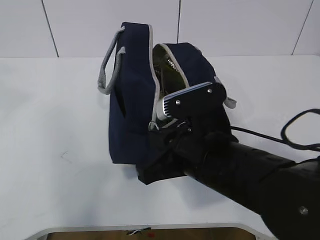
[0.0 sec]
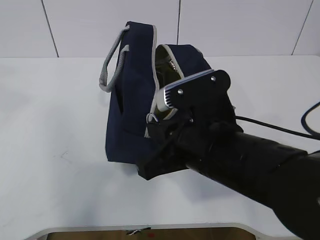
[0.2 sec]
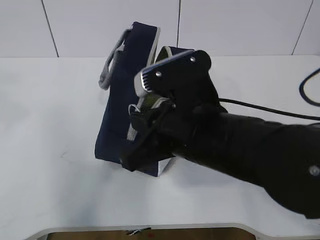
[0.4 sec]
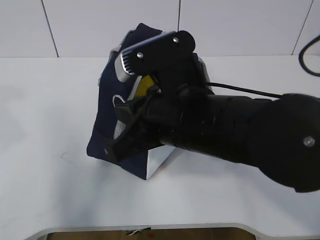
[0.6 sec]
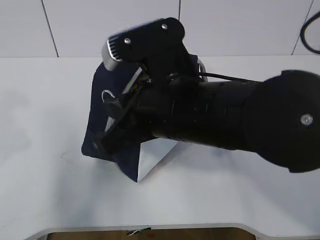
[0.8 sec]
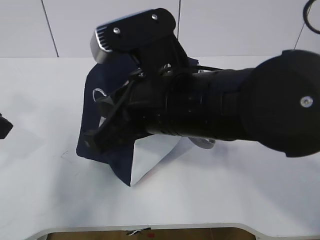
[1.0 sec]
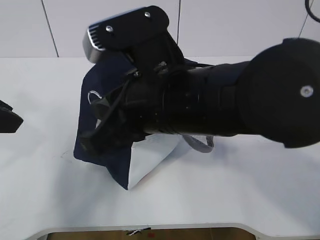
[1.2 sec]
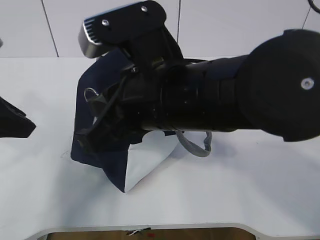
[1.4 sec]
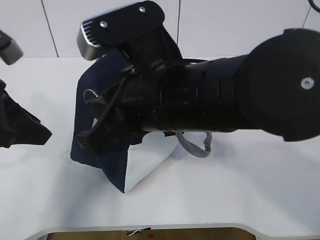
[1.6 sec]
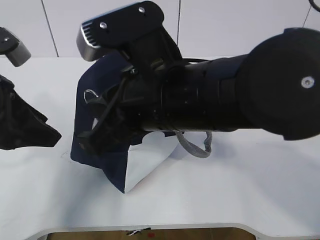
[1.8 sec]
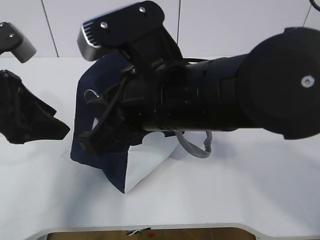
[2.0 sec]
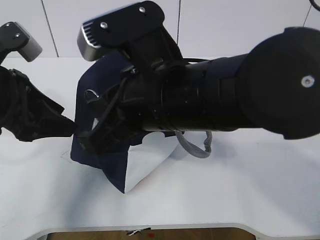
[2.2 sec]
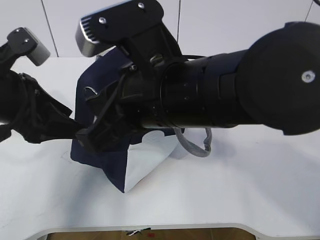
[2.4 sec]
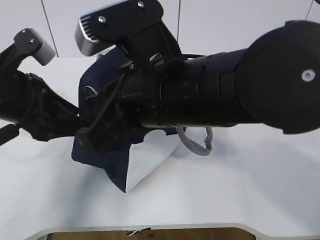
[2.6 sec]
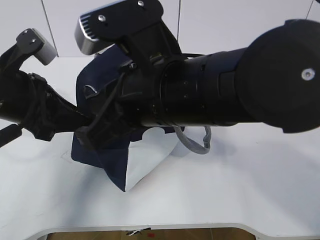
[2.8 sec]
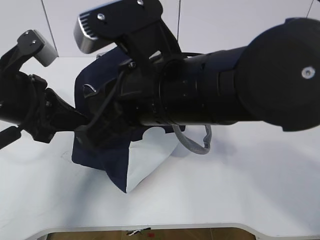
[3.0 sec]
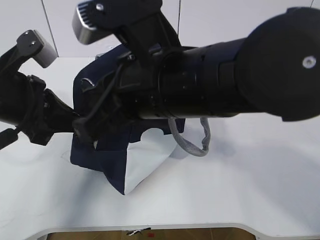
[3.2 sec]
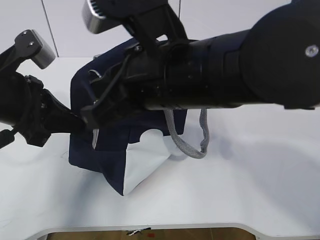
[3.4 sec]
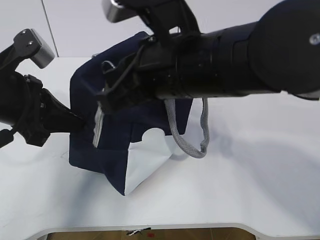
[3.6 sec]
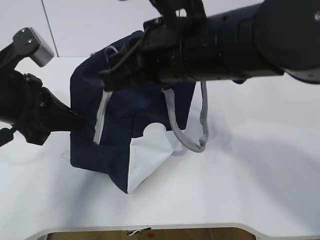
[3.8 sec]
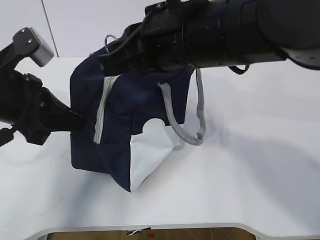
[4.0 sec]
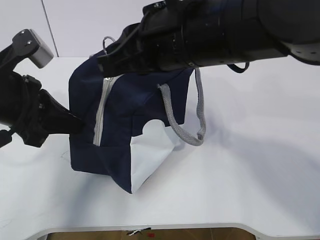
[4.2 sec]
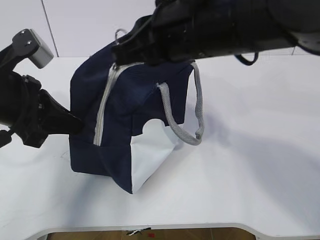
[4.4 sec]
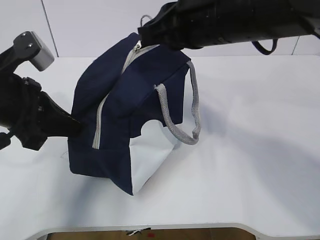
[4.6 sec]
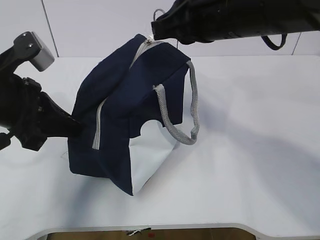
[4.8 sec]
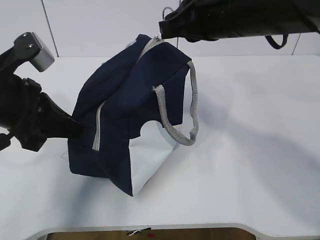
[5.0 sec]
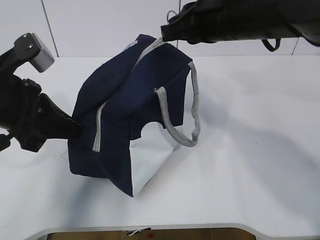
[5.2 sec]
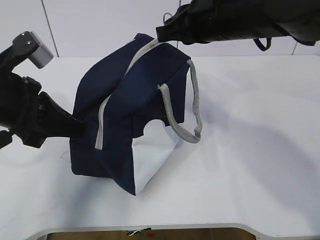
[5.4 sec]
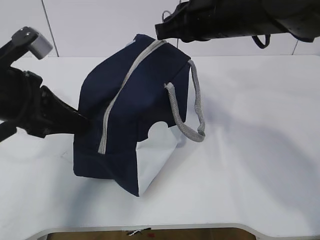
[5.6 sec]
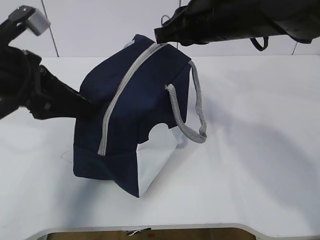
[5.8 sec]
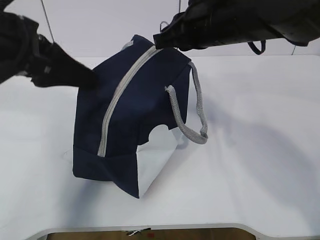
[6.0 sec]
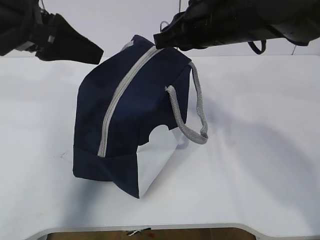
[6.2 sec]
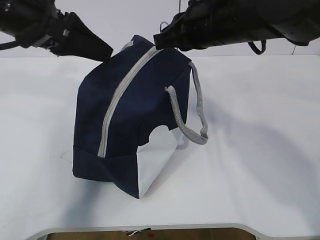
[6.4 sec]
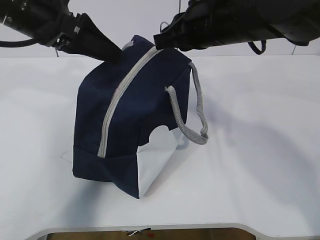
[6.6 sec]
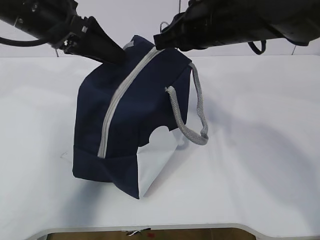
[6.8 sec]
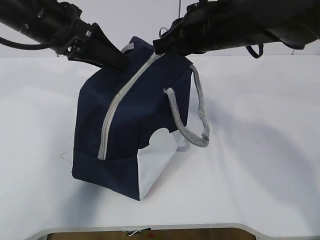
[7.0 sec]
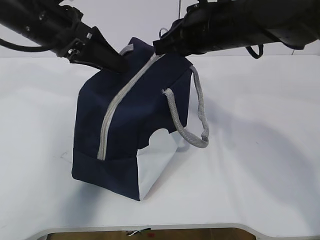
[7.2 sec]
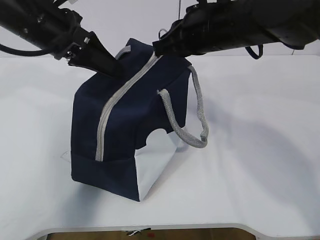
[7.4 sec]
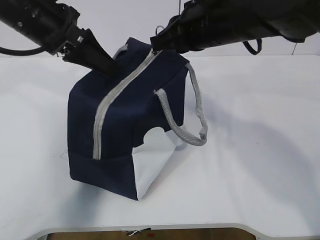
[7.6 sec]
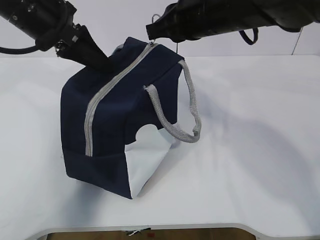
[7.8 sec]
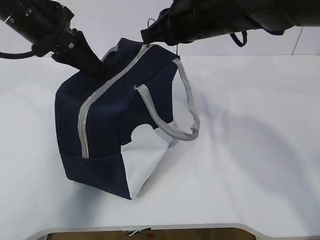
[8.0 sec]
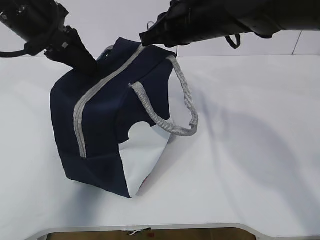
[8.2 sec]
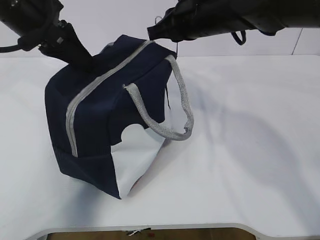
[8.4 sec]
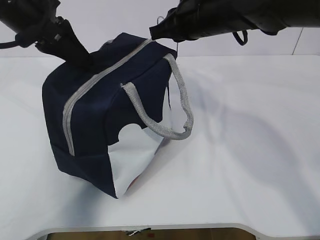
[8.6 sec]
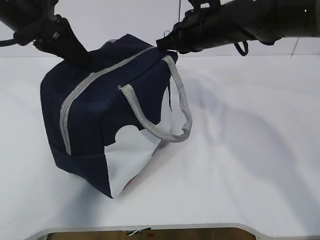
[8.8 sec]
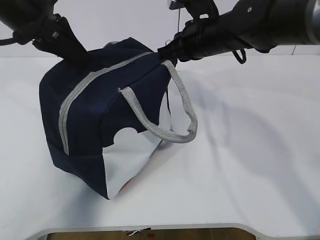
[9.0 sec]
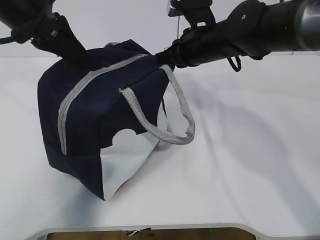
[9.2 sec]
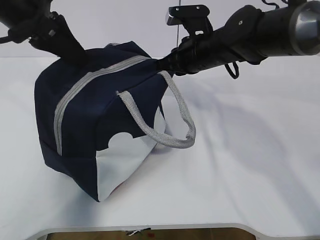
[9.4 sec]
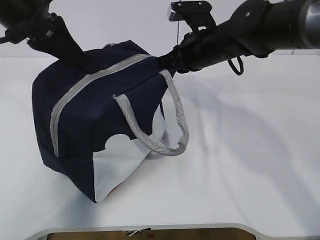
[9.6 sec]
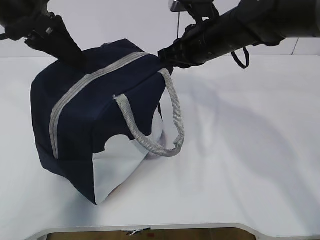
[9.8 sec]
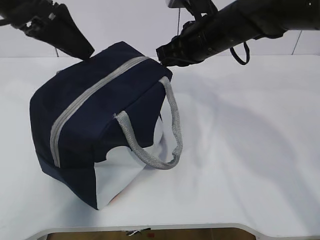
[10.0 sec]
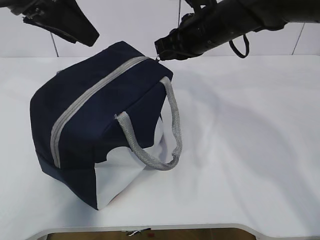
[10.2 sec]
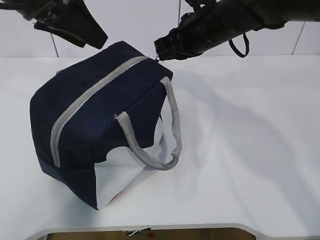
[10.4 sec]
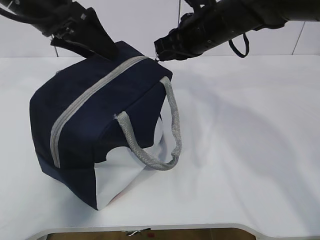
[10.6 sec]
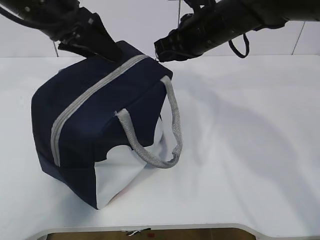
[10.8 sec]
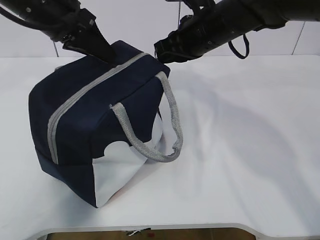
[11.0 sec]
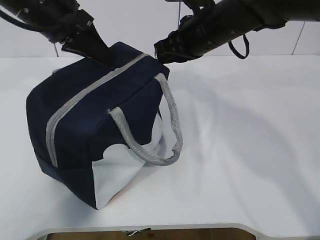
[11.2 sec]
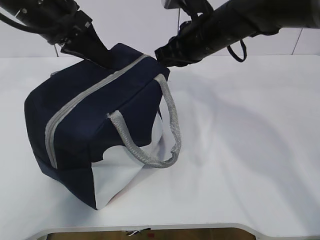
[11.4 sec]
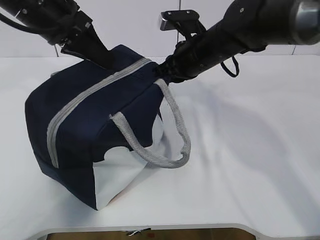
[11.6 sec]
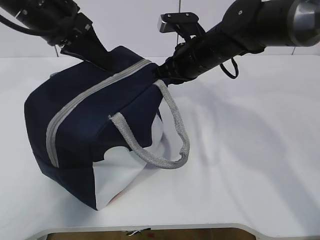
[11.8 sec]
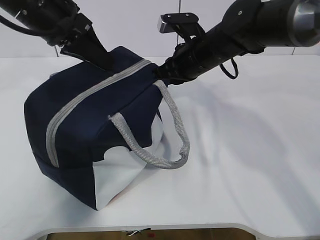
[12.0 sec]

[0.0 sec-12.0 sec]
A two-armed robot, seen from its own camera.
0.0 sec to 1.6 sec: The right gripper heads upward, covering roughly 10 cm. Meanwhile the left gripper heads downward, covering some 20 cm.
1.6 sec to 3.0 sec: The left gripper closes up.
3.0 sec to 4.4 sec: The right gripper is displaced forward by roughly 5 cm.
4.4 sec to 6.0 sec: The left gripper moves upward, roughly 5 cm, and opens. The right gripper travels forward by roughly 10 cm.
6.0 sec to 7.6 sec: The left gripper heads forward, covering some 5 cm, and closes up.
7.6 sec to 9.0 sec: The right gripper travels forward and downward by about 10 cm.
9.0 sec to 10.4 sec: The left gripper opens.
10.4 sec to 12.0 sec: The left gripper closes up. The right gripper travels downward by roughly 5 cm.

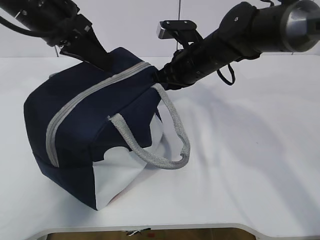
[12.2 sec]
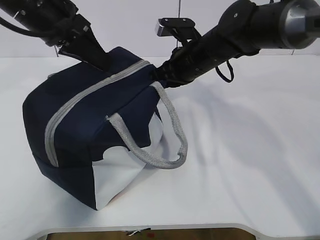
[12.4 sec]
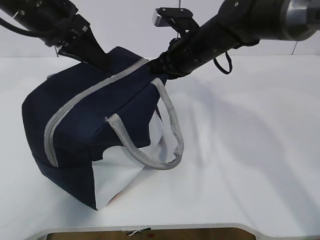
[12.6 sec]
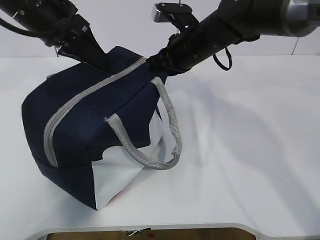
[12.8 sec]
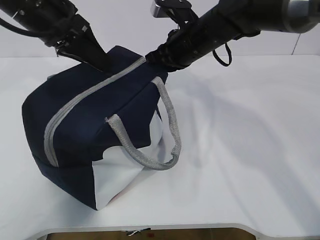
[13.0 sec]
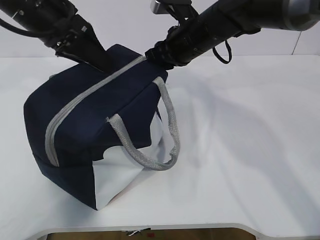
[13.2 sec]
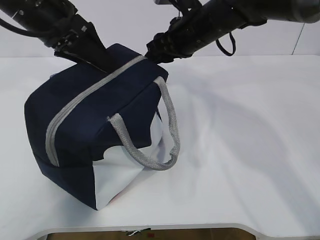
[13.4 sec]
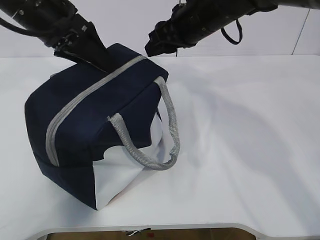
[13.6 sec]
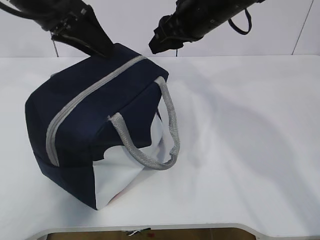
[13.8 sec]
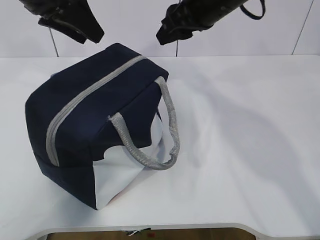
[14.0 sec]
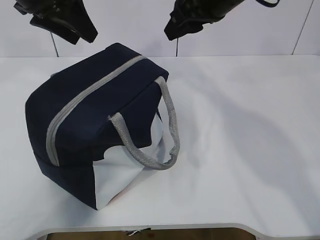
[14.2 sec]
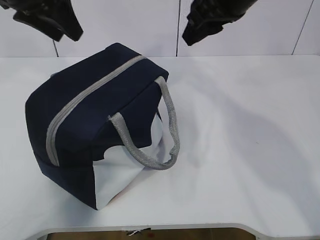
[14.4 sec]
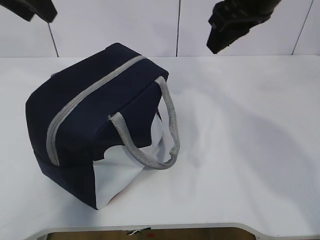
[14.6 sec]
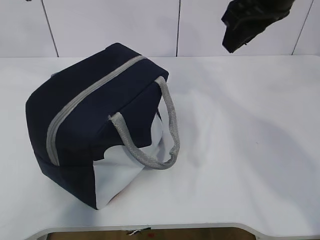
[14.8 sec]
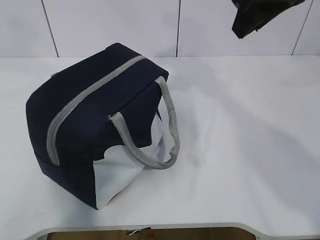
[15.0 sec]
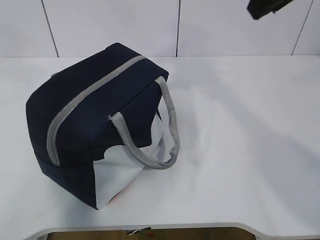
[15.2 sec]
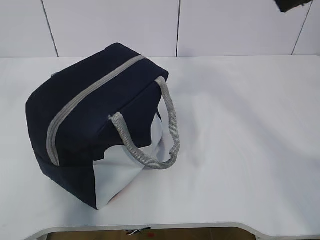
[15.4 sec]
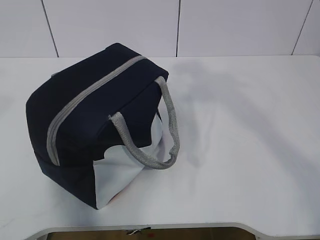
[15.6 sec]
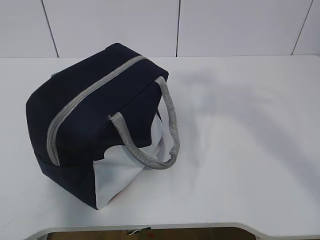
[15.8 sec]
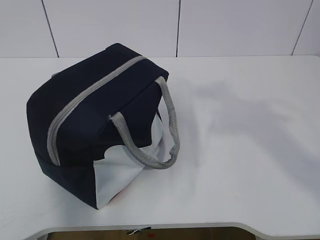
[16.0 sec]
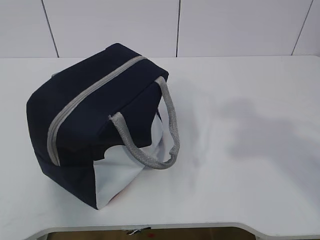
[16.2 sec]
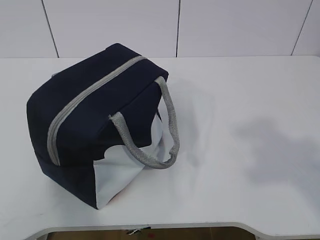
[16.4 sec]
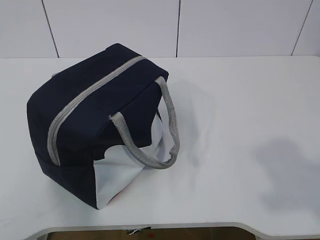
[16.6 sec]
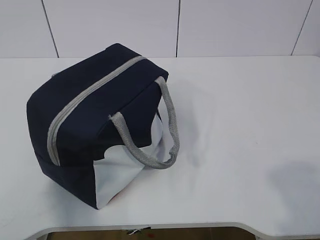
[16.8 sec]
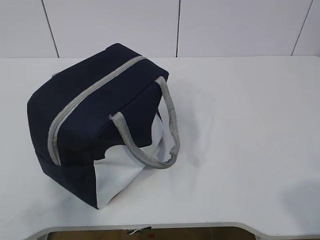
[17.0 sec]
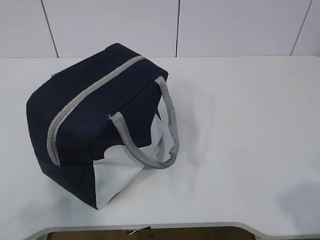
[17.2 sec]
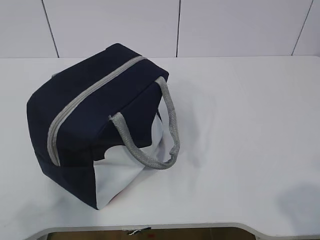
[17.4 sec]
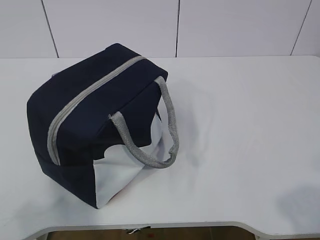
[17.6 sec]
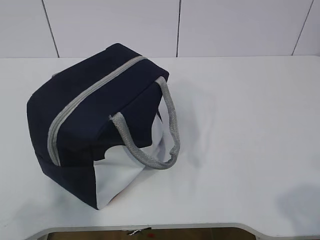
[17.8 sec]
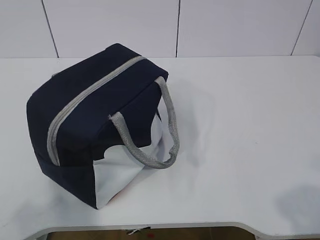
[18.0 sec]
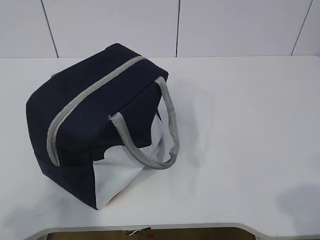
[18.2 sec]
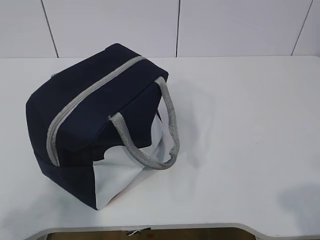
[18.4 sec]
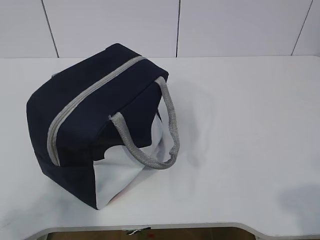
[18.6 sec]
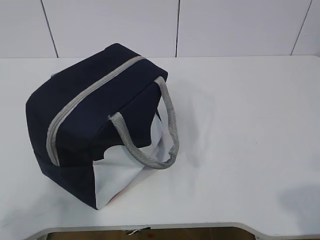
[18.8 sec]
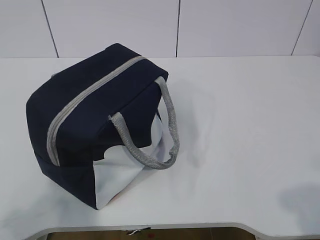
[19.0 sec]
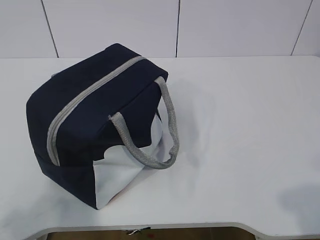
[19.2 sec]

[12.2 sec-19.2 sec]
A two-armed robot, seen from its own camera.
Step, 12.2 sec to 14.2 sec: zip up the zipper to close the bag.
12.2 sec to 13.6 sec: The right gripper is displaced upward by approximately 10 cm, and opens, while the left gripper opens its fingers.
13.6 sec to 15.0 sec: The left gripper travels upward, backward and to the left by about 20 cm; the right gripper shifts roughly 15 cm upward, backward and to the right.
15.0 sec to 16.4 sec: The two grippers go roughly 30 cm backward.
16.4 sec to 17.8 sec: Both grippers travel together downward, some 15 cm.
17.8 sec to 19.2 sec: There are only small adjustments of the grippers.
